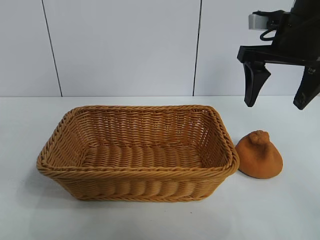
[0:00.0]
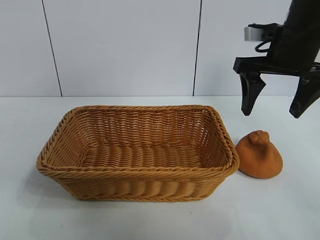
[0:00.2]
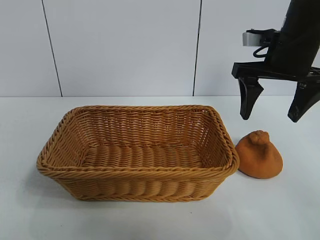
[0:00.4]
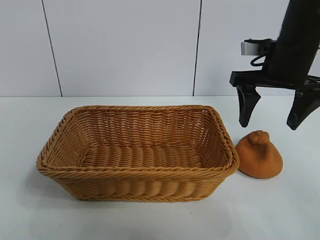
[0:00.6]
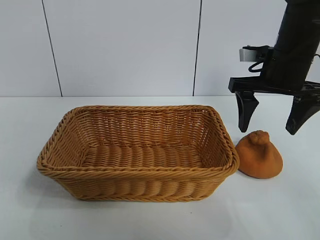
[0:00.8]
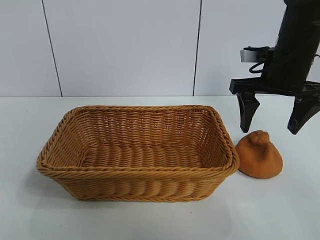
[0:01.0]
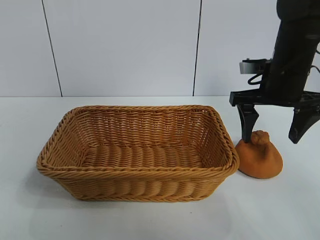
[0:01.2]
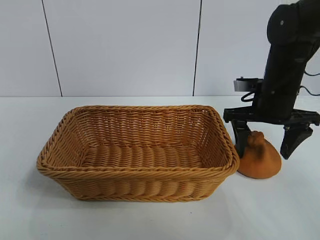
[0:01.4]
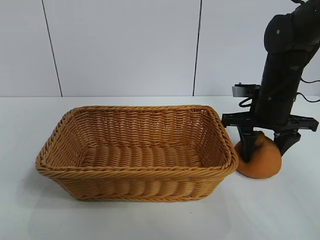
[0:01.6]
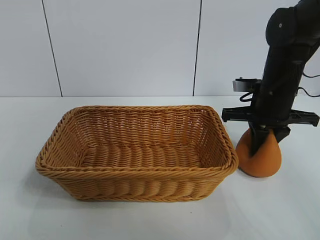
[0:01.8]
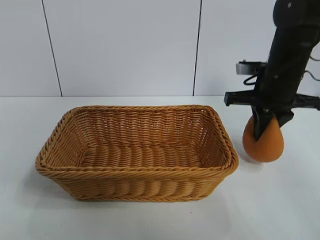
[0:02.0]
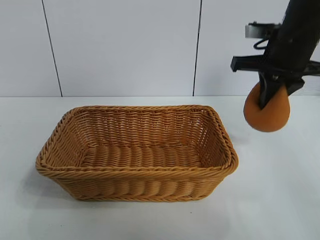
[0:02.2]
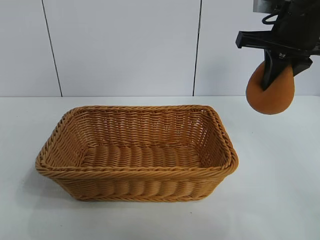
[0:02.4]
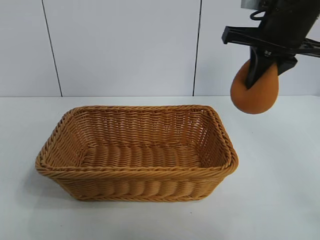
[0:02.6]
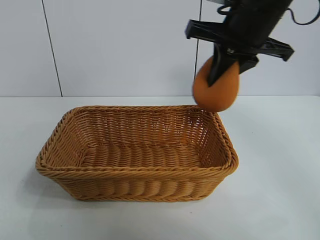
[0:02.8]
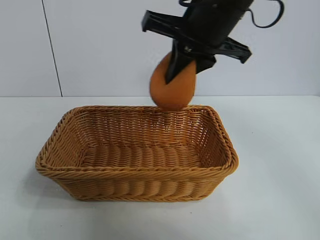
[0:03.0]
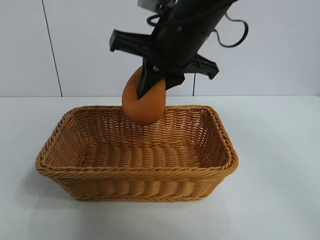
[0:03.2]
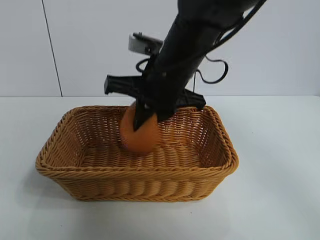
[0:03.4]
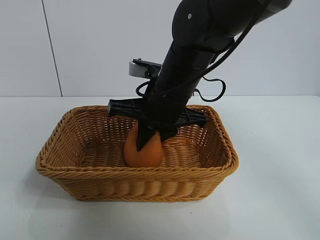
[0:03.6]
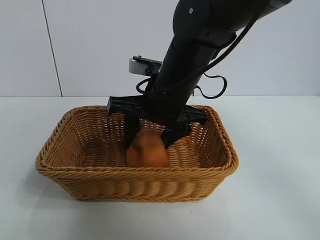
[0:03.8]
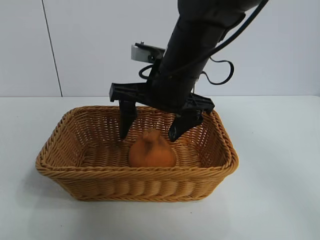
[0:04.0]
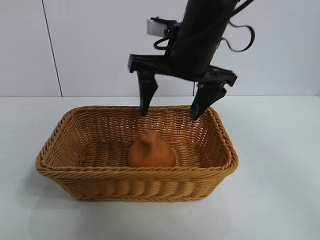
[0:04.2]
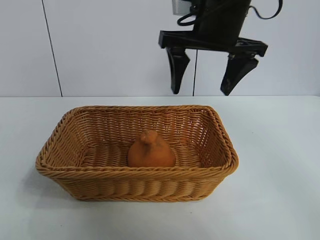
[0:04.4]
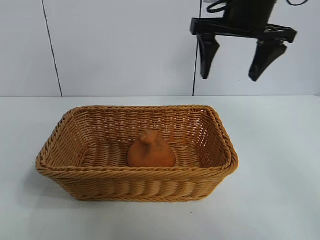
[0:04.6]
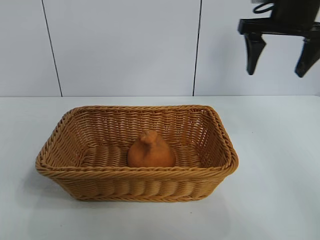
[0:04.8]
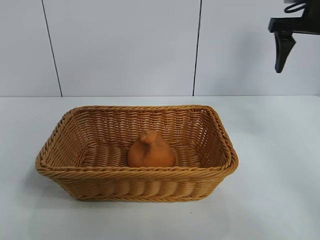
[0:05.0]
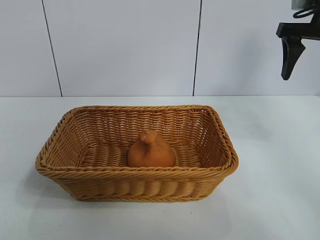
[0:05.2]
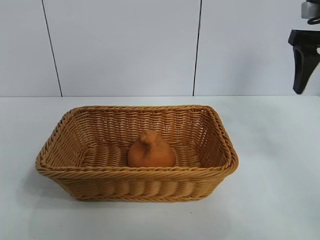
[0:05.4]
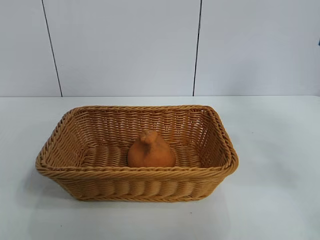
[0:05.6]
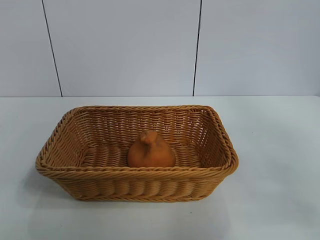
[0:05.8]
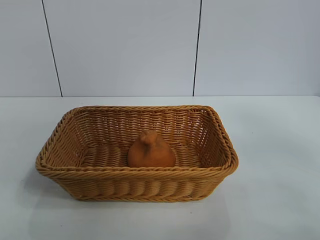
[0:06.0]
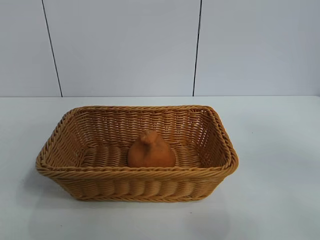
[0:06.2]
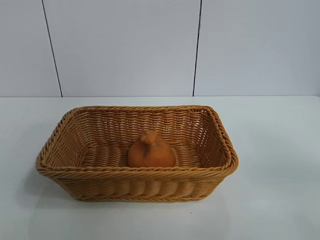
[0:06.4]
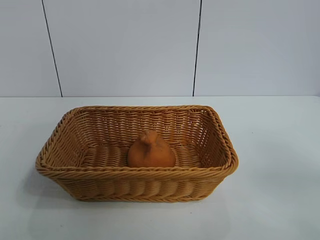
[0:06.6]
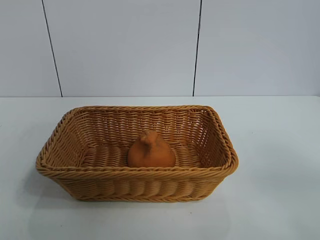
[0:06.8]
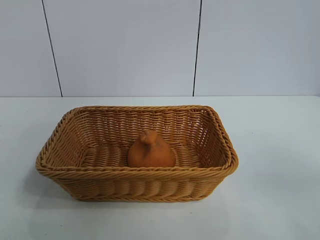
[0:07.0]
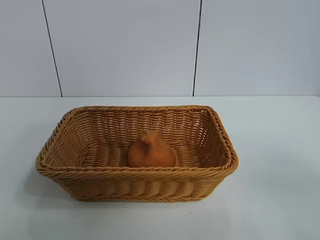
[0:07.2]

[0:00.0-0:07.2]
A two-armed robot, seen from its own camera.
Task of the whole recording: pick up the orange and put it into the basket.
Step, 0:02.2 to 0:03.8: Place the orange in the basket with right gripper.

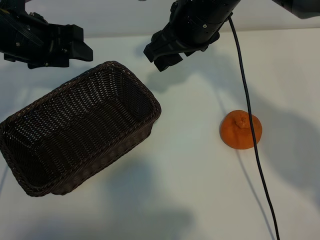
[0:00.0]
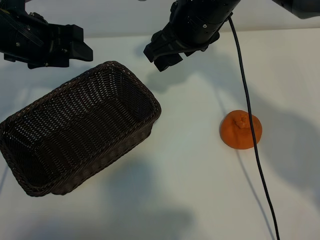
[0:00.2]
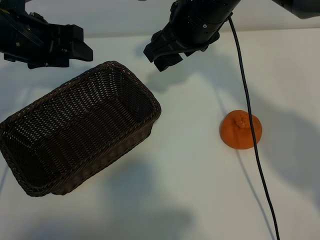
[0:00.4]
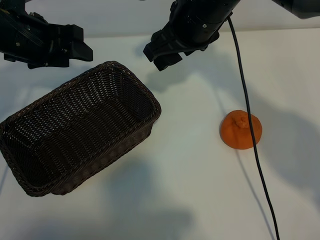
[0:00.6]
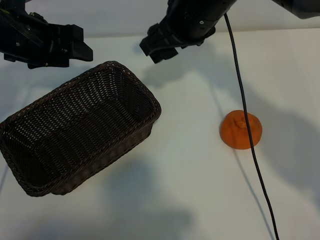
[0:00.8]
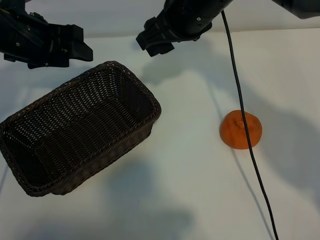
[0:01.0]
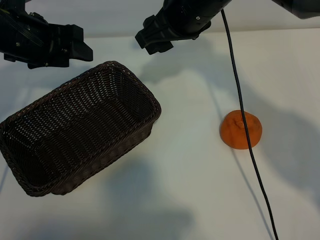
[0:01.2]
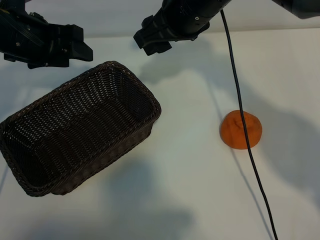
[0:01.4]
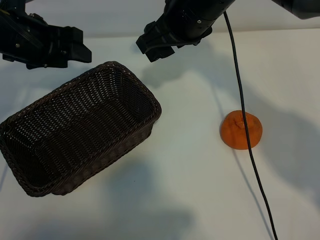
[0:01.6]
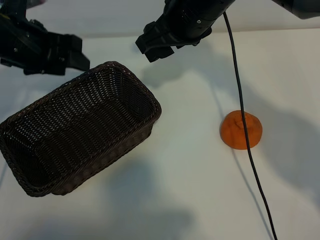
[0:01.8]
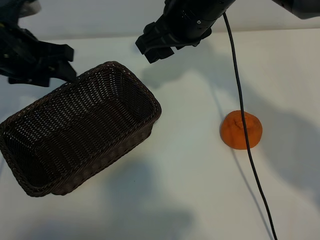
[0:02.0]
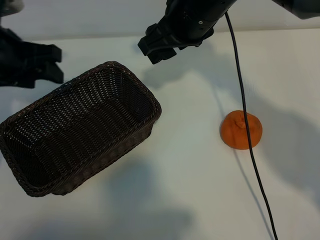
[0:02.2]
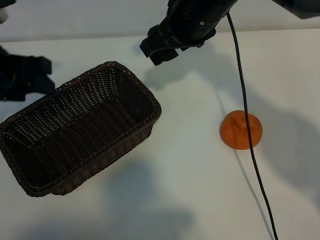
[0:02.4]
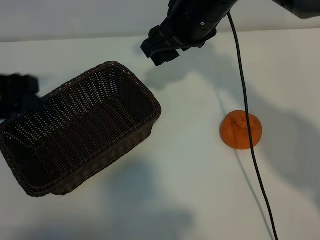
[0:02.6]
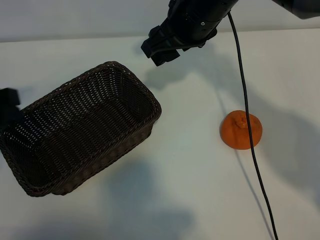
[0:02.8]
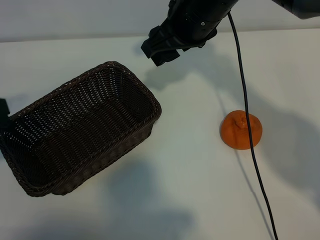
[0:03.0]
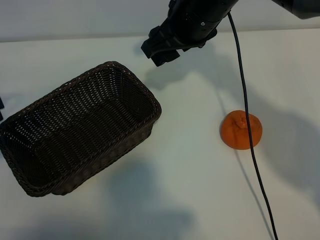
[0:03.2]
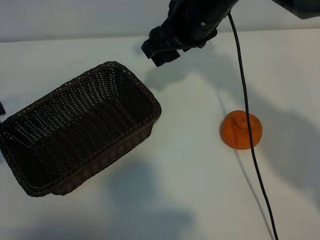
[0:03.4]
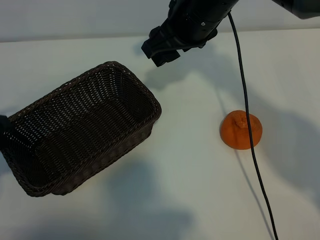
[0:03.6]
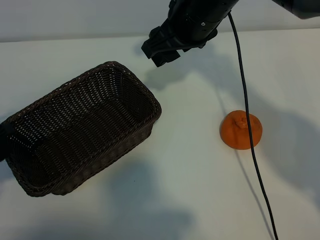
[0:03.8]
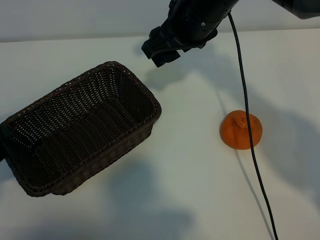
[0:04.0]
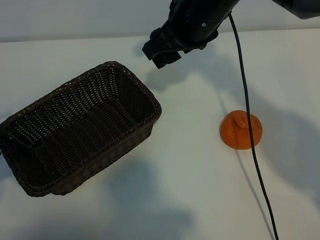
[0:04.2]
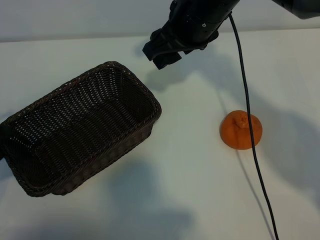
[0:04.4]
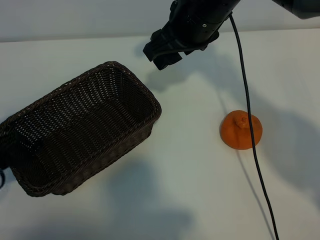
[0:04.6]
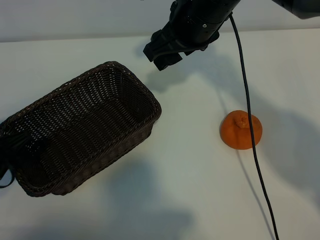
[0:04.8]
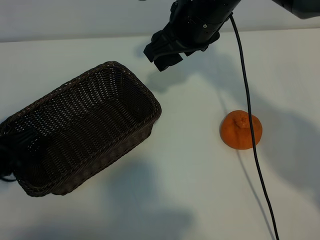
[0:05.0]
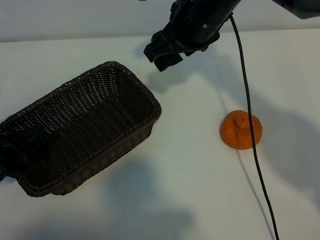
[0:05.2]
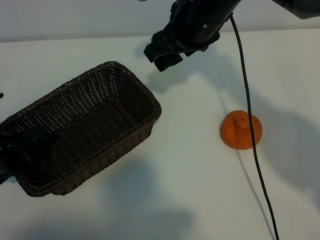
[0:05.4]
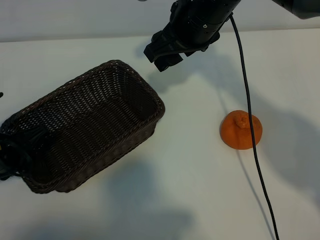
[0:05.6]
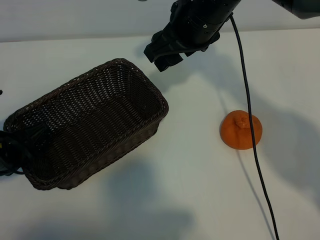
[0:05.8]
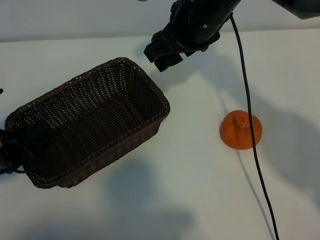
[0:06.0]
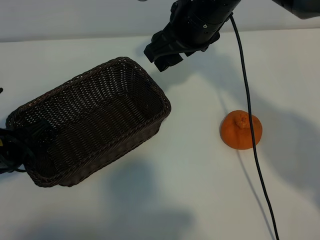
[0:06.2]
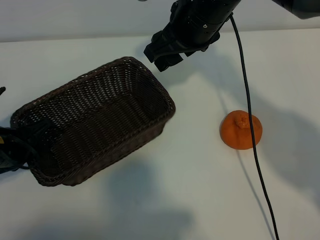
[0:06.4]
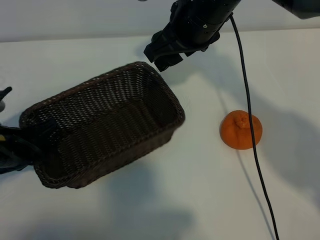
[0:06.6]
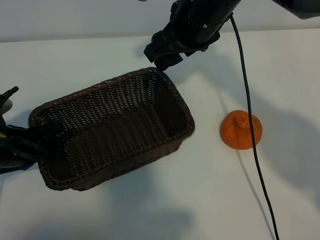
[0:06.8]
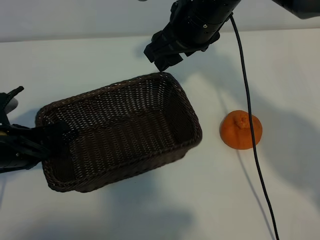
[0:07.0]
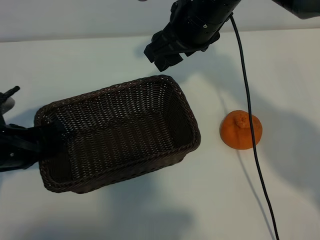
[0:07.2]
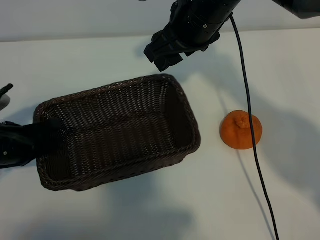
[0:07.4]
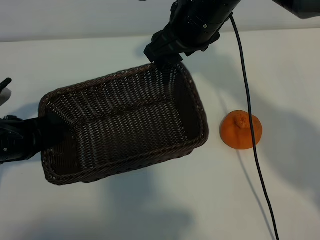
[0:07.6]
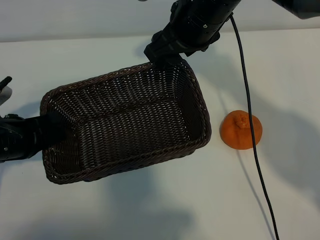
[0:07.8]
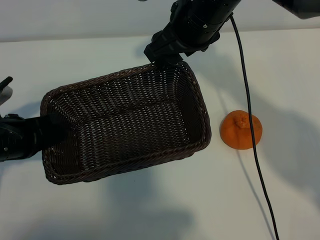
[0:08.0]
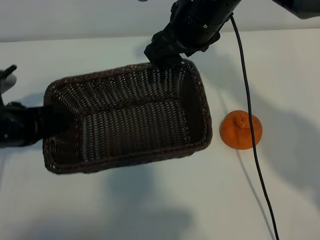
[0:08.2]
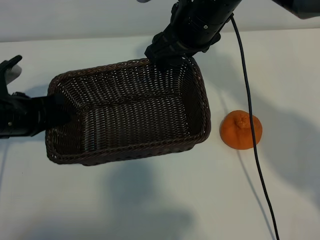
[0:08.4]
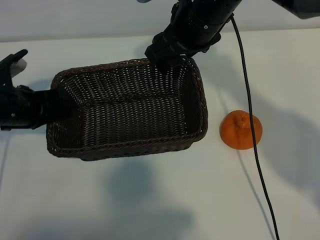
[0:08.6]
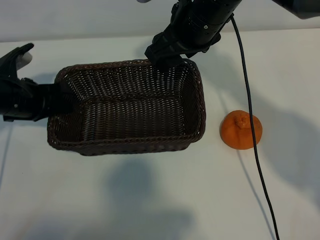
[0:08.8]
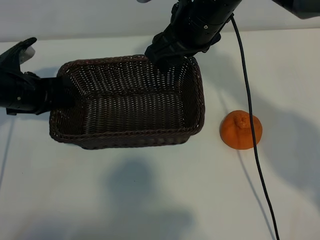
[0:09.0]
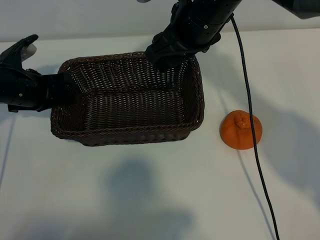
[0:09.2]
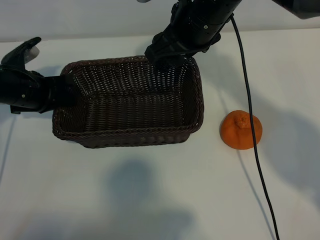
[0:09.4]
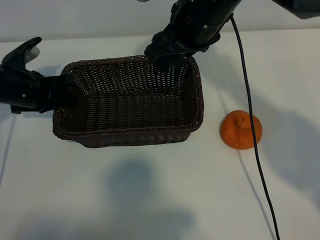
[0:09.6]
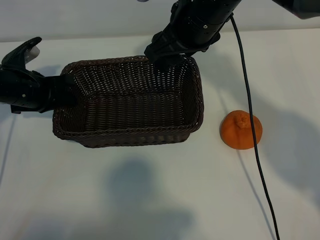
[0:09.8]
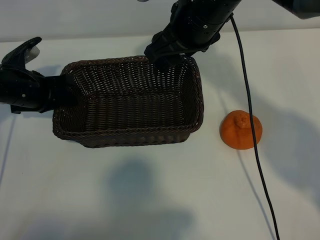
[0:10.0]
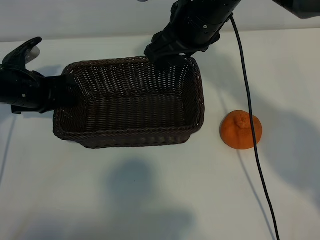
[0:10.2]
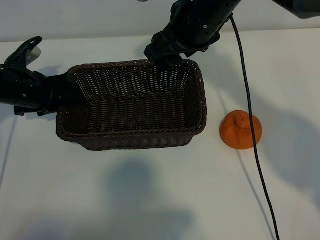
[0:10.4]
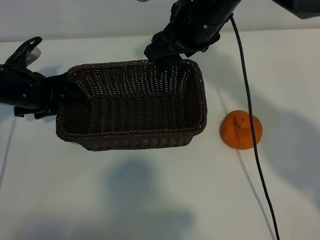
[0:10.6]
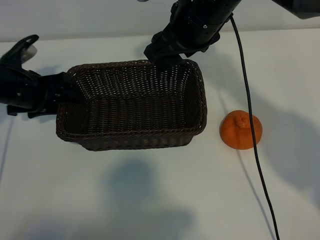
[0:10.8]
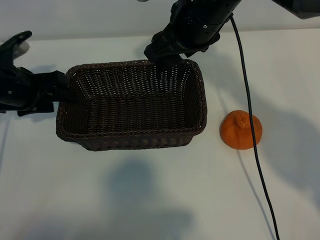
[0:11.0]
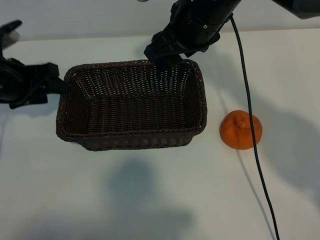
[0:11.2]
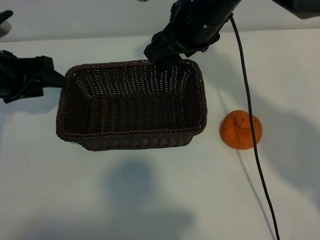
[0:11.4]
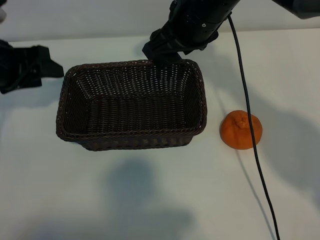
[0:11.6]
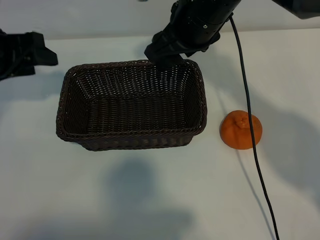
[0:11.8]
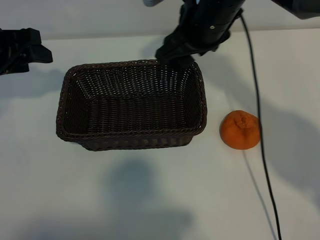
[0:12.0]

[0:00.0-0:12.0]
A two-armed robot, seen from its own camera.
Task of the whole recording: pick up the orange and put it into the basket.
Step, 0:00.6 to 0:05.8: Grasp the basket with left gripper.
Step, 0:06.0 to 0:10.2: Place the basket in the center of view with left gripper.

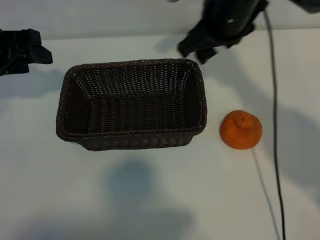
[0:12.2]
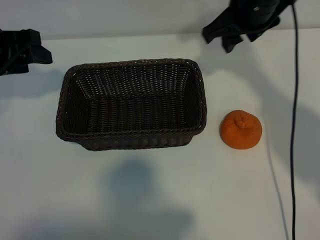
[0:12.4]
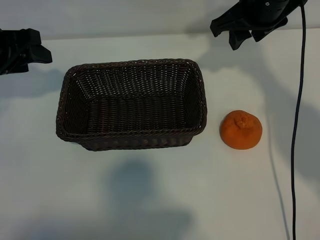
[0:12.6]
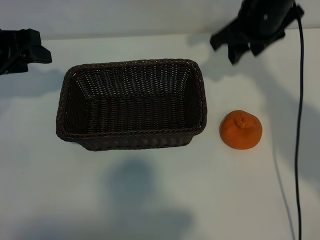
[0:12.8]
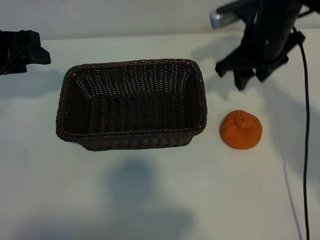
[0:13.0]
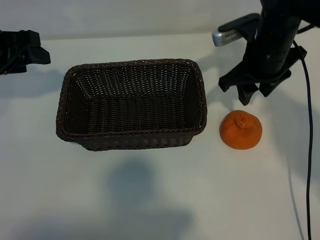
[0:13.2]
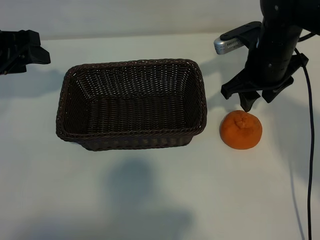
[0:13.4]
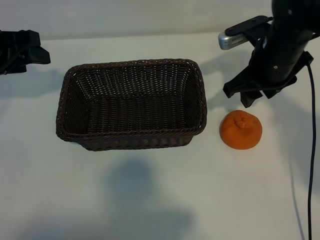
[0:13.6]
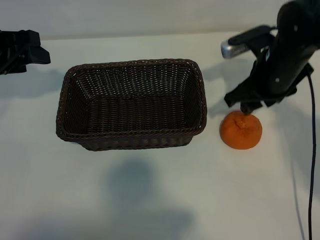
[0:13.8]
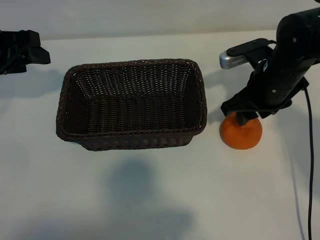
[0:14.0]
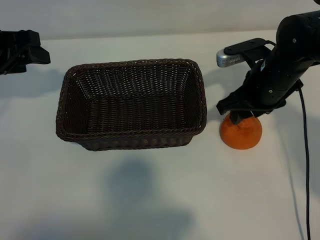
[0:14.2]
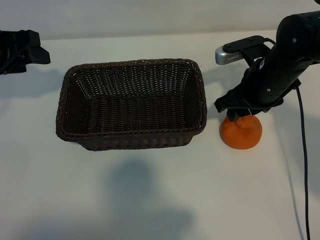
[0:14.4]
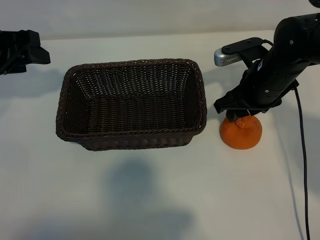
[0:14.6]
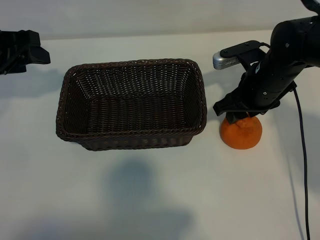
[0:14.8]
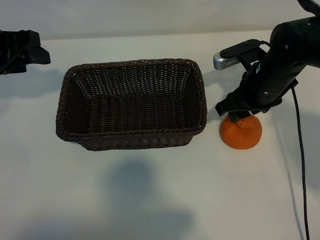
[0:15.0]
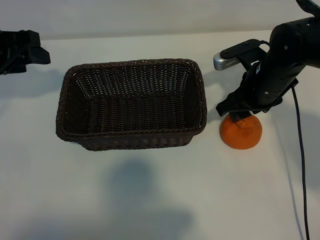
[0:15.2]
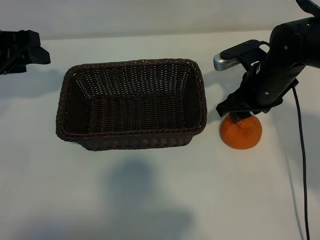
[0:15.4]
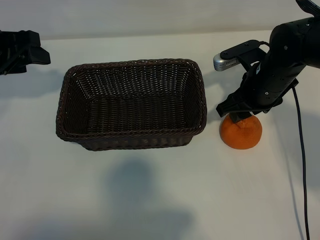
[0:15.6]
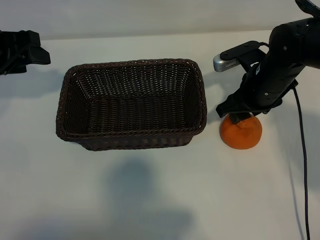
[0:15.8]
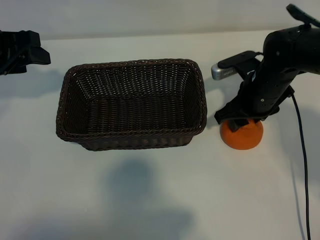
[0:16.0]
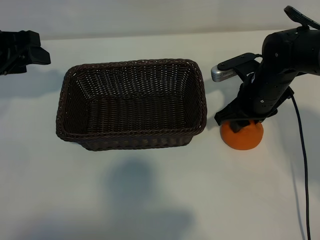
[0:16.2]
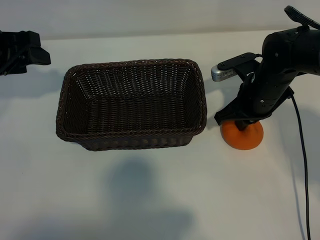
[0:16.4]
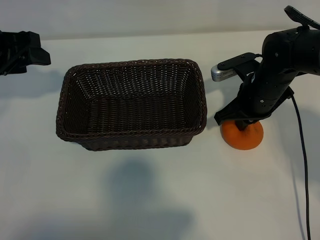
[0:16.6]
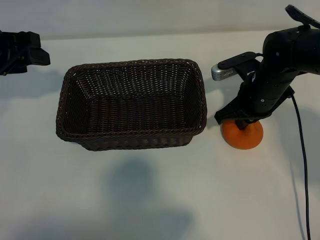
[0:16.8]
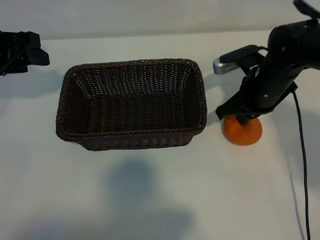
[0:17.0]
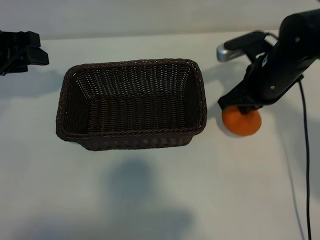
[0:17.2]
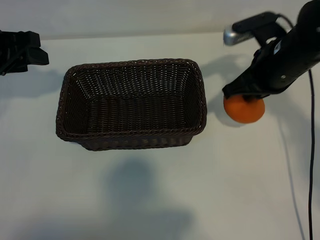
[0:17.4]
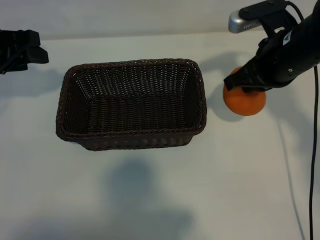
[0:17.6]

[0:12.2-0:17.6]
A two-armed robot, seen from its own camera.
Task of the whole recording: pick up the orange and put it into the basket.
Step, 0:12.2 to 0:16.6: Grasp the orange with right gripper.
